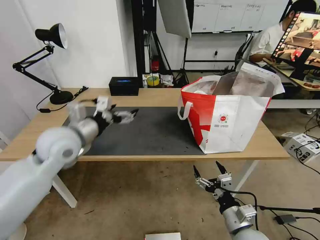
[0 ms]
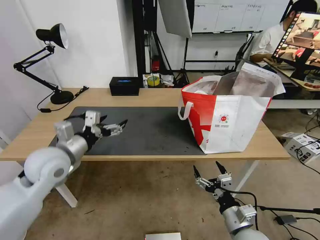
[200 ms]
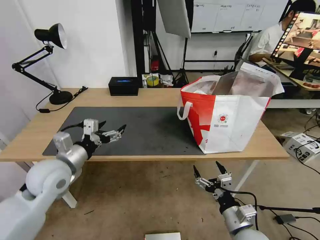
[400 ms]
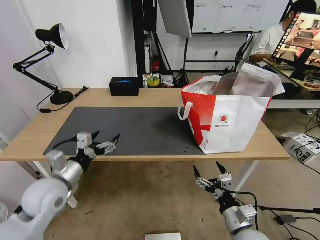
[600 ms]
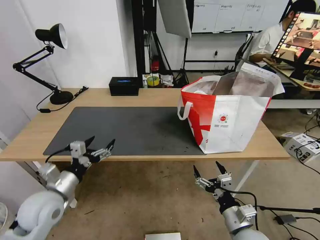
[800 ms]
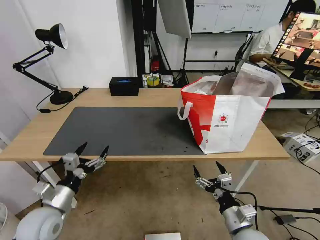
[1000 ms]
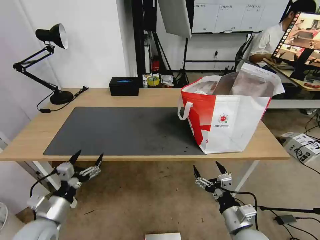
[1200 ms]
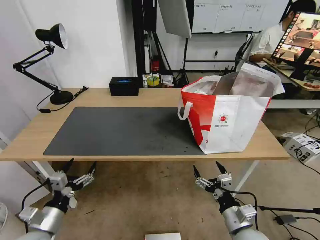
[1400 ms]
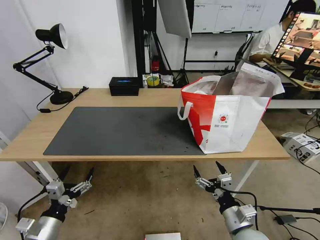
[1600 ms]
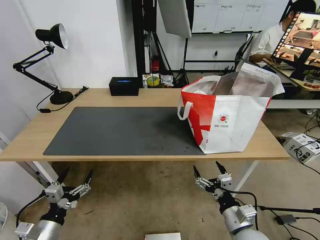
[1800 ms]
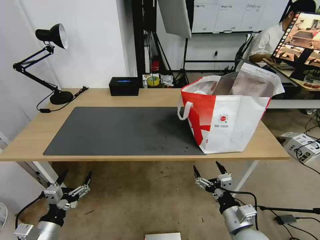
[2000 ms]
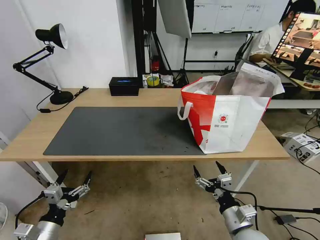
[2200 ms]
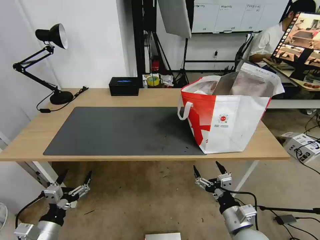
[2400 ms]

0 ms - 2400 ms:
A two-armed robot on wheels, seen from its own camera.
Task of the whole recording: Pick up the trash from the table and place it into the takeout bag.
0 ms - 1200 ms: The left gripper moves downward and backward, about 25 cm.
1200 ms - 2400 ms: The left gripper travels backward by approximately 5 cm.

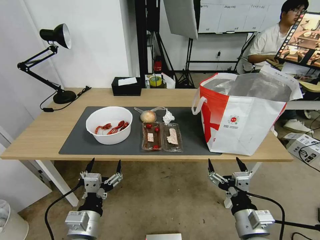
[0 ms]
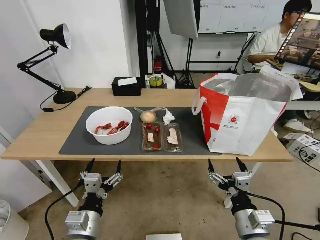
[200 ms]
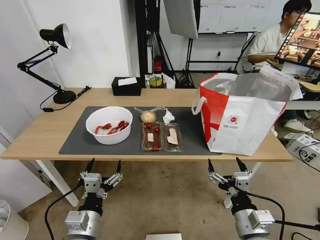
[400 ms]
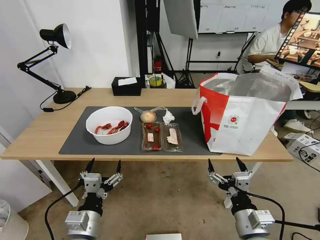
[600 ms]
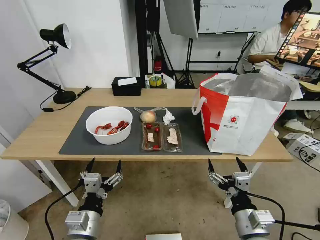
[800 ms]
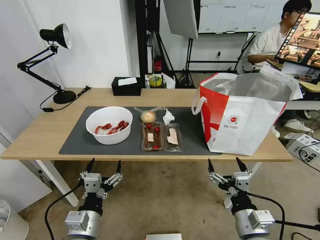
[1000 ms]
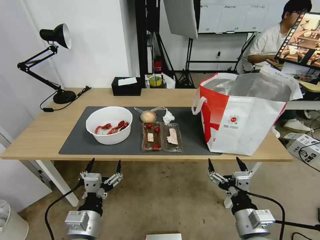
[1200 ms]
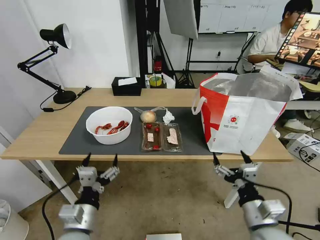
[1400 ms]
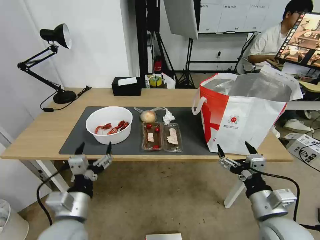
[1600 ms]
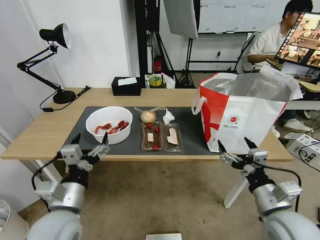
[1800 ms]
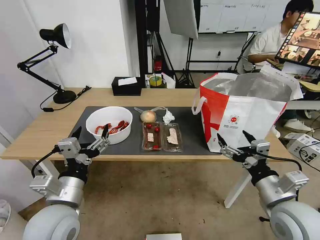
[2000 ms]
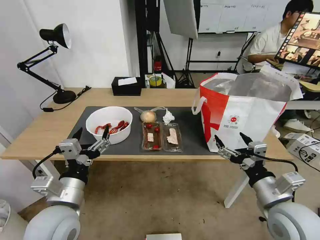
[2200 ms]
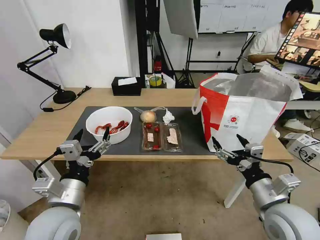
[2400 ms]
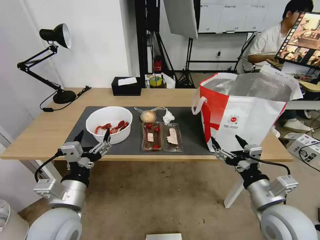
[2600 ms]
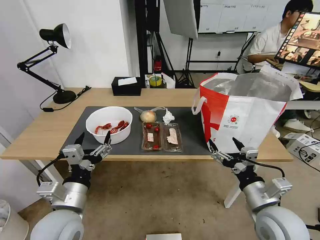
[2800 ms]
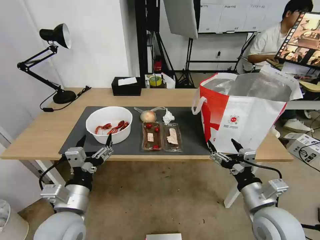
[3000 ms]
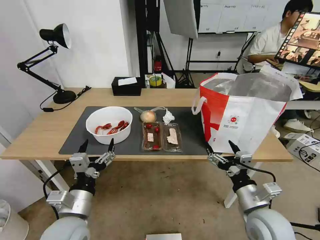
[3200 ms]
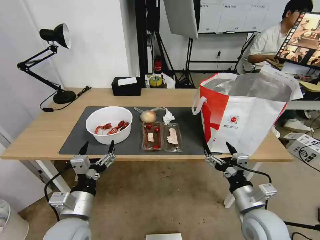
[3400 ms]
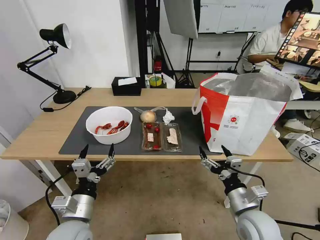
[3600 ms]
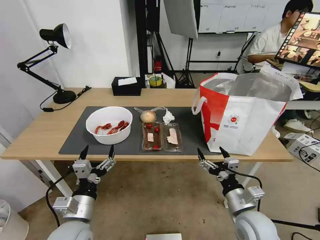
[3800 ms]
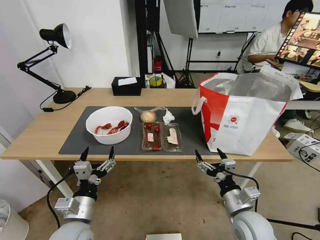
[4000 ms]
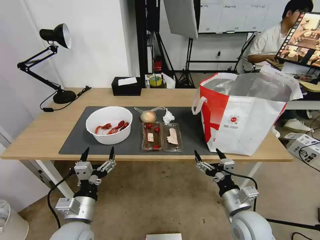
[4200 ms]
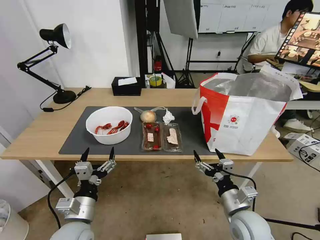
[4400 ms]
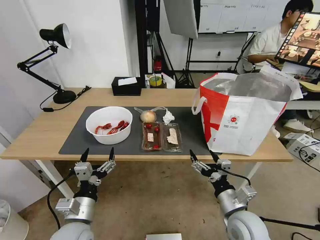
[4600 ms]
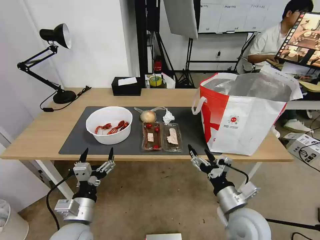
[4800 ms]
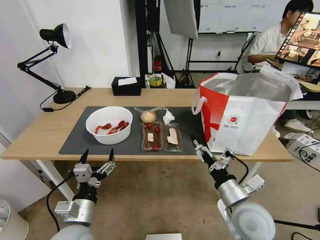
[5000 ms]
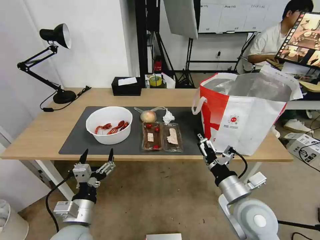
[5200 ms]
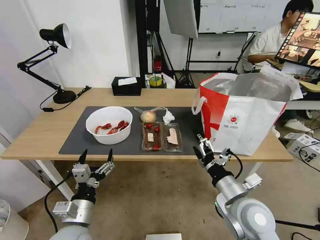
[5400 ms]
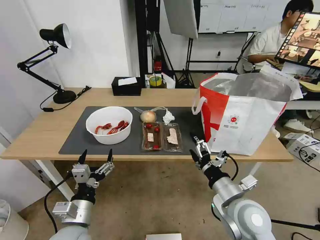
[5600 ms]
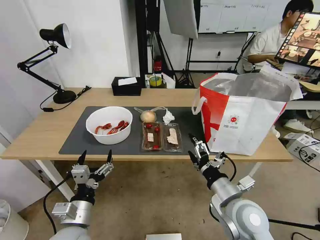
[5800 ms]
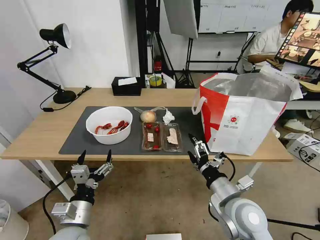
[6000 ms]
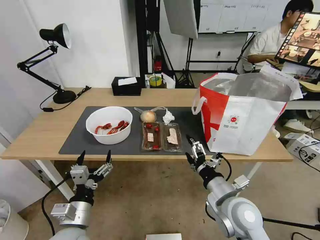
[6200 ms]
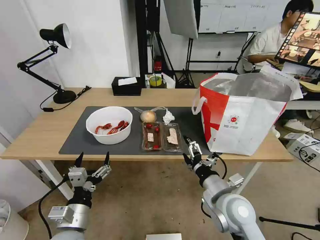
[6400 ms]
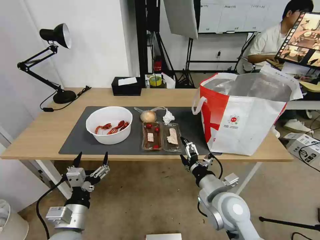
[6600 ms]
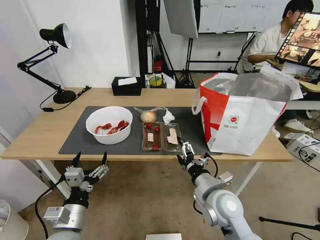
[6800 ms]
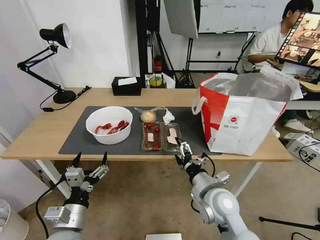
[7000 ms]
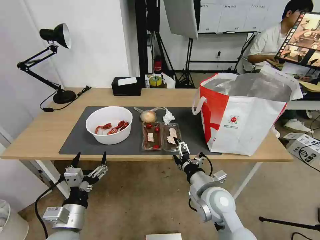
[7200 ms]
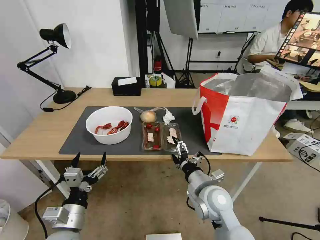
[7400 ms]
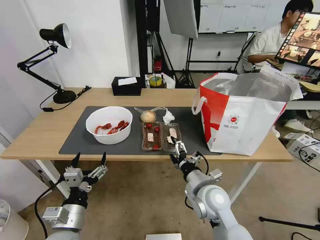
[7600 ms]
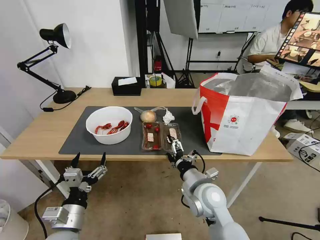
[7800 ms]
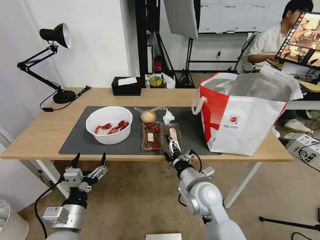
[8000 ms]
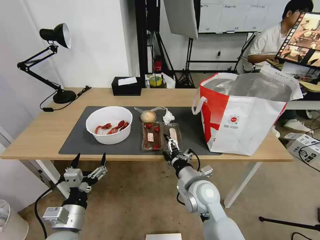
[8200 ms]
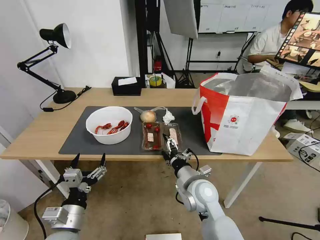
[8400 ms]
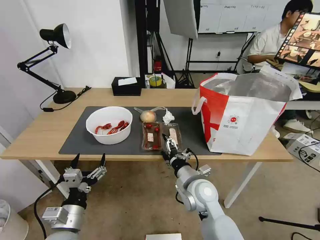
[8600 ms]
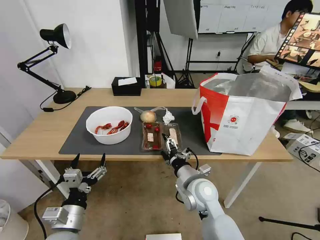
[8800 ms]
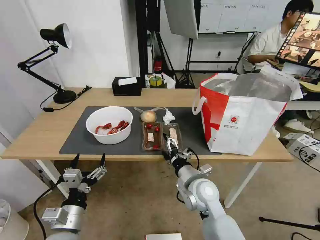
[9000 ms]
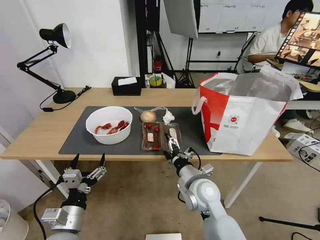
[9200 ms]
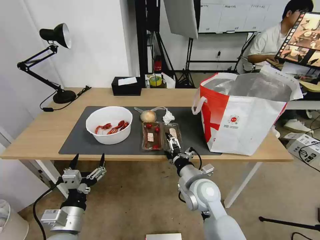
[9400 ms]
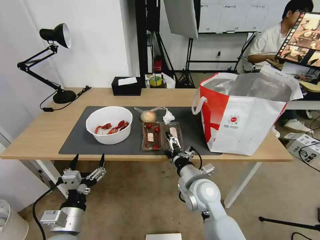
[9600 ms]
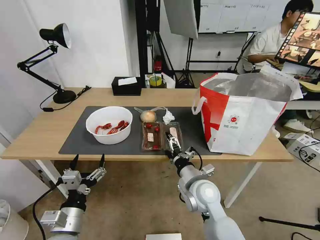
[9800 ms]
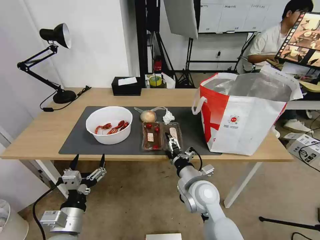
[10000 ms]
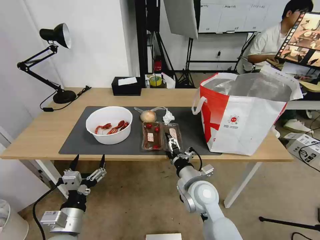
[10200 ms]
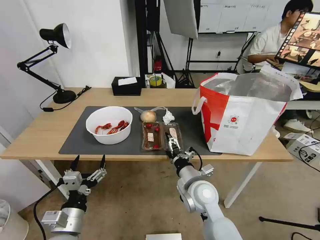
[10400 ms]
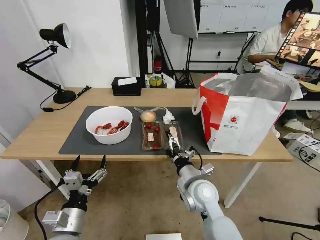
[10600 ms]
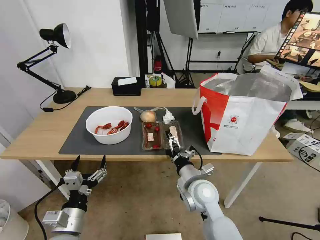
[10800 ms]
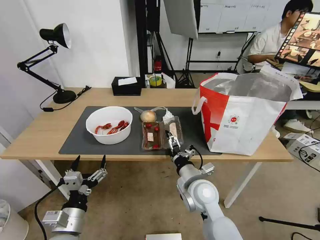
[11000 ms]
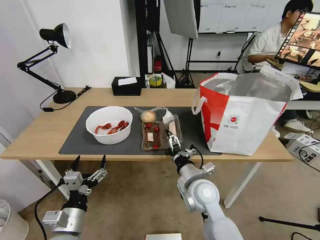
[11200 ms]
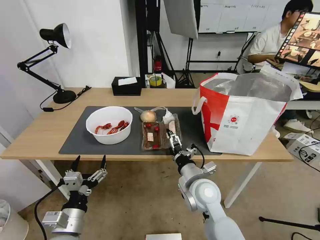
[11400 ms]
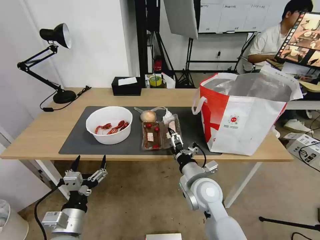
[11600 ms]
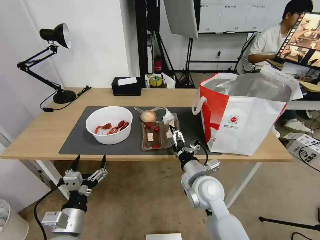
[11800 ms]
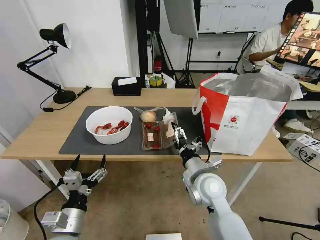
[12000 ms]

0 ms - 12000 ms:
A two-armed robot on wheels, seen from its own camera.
Task of the whole recording: Pick up the trash from the table and place it into the takeout bag.
1600 ms - 3000 ms: The grippers move only a little.
3000 ms - 4400 ms: Both grippers move downward, roughly 5 cm.
4400 ms - 6000 ms: The right gripper shifts approximately 5 cm upward.
6000 ms - 7600 ms: The right gripper shifts about 10 cm to the left and forward.
7600 ms - 12000 ms: The grippers make only small movements.

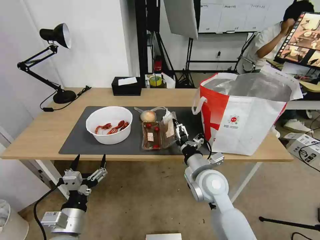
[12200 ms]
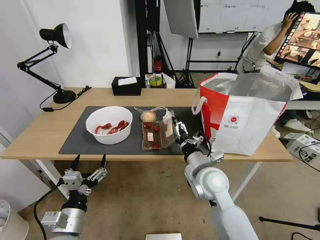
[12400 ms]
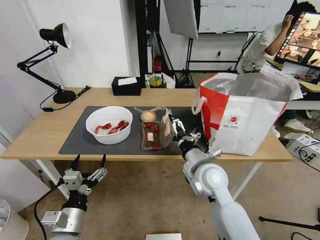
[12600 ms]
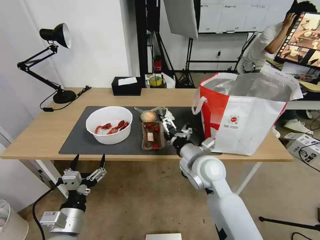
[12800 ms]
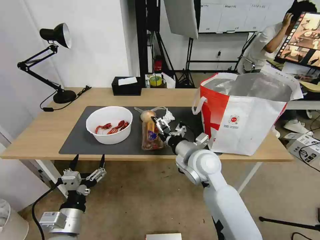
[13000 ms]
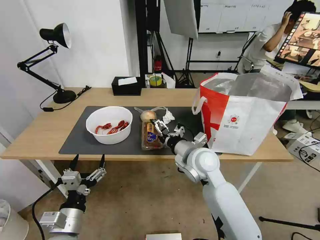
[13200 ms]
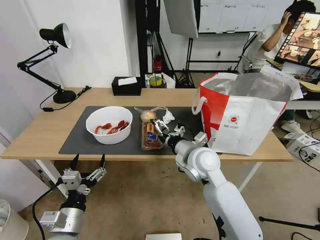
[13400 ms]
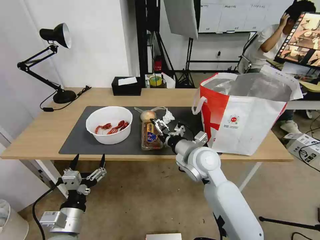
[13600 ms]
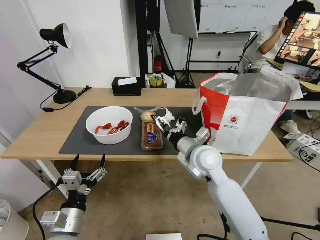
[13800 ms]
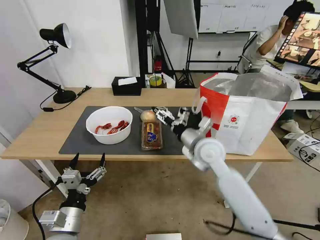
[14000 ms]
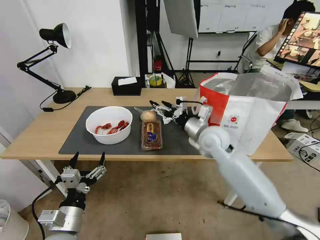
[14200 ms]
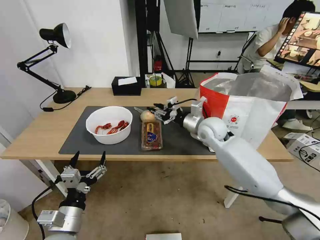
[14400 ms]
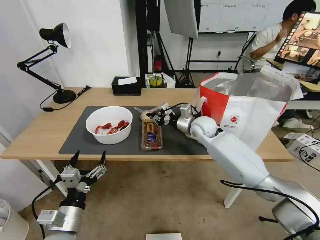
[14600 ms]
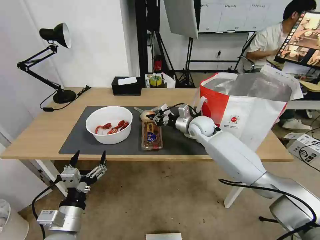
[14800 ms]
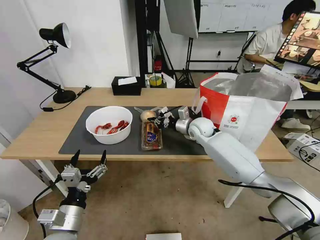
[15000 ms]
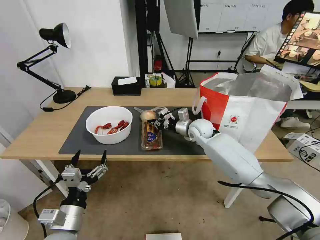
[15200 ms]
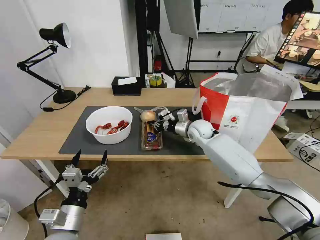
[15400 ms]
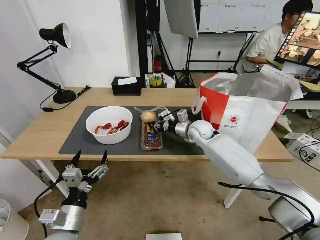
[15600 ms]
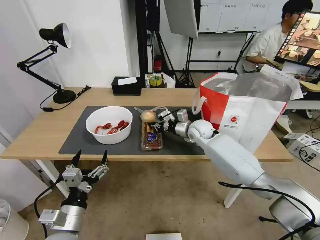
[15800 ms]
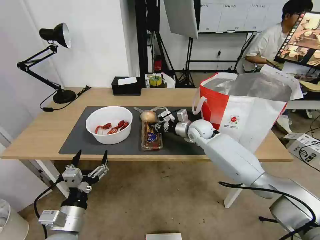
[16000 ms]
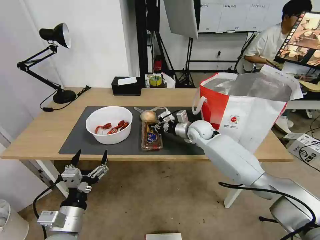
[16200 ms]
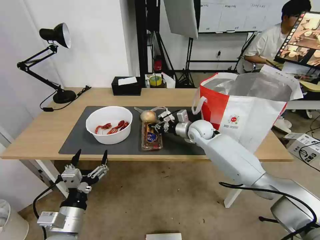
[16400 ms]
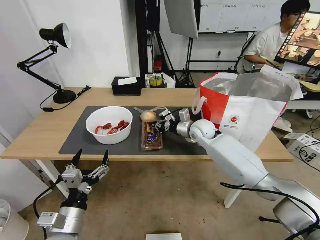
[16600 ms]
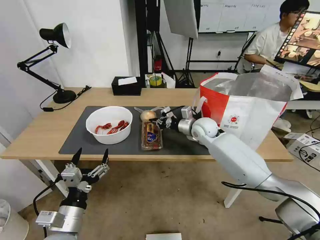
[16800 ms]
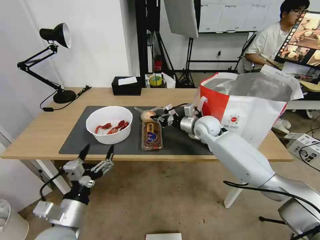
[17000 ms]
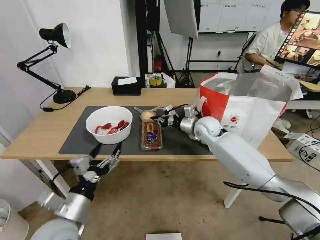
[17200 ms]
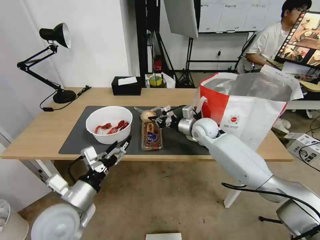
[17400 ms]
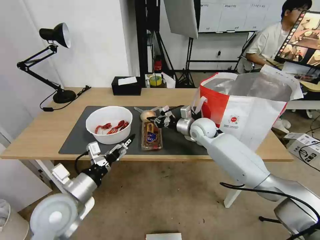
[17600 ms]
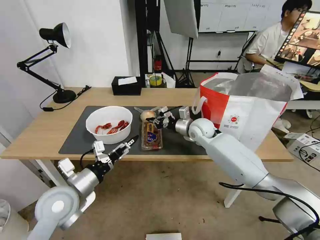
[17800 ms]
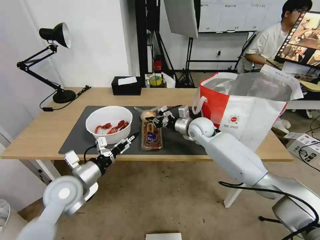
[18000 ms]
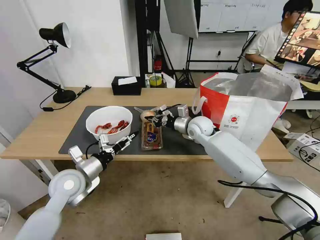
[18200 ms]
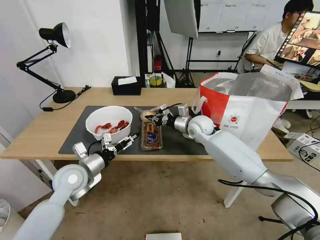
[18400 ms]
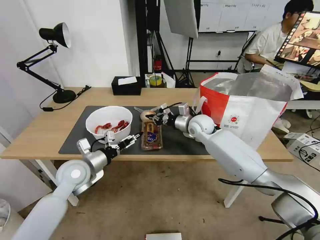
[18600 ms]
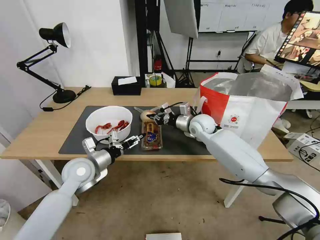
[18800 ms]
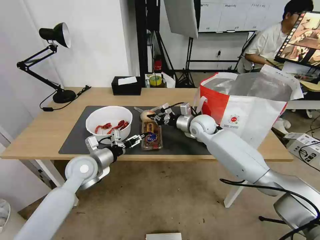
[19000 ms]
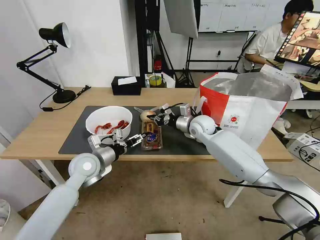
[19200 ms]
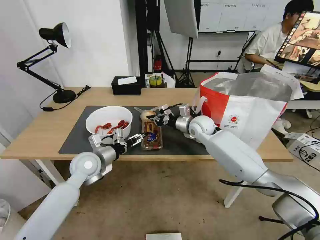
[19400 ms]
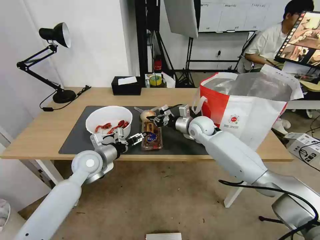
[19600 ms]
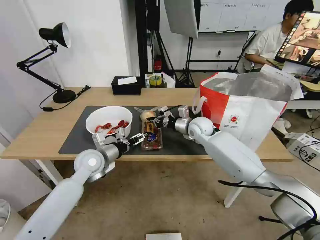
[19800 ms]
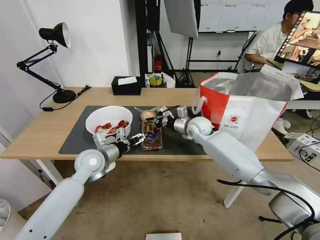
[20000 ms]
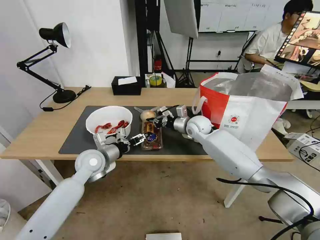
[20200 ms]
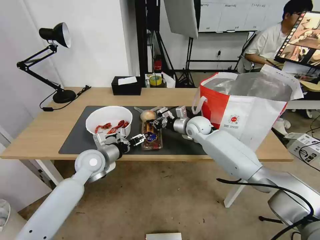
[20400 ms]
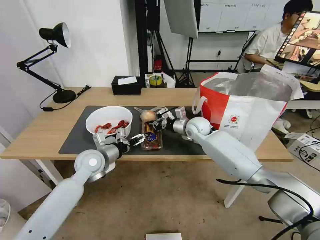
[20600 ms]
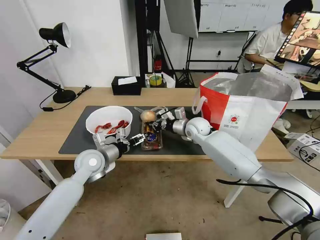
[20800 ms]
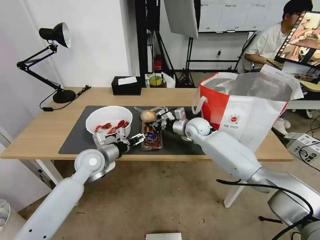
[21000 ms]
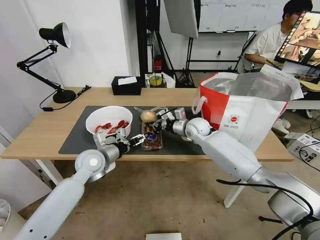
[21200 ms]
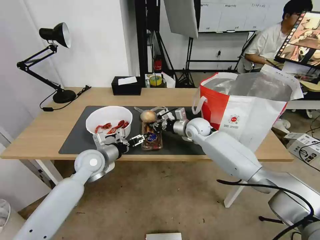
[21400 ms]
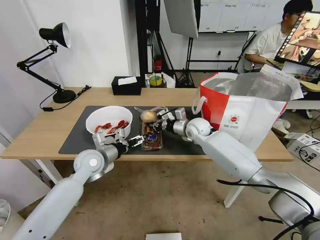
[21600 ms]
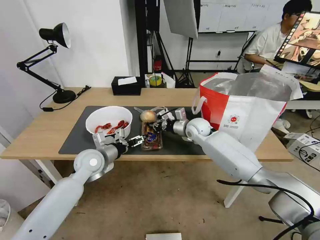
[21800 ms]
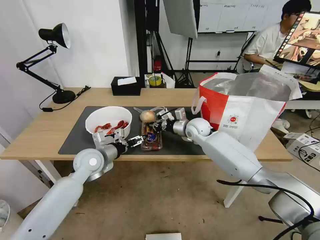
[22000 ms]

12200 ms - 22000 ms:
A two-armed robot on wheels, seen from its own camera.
Task of the whole recording: Pick up the trash from the table and place it into the takeout bag.
12200 ms - 13600 ms: The right gripper is displaced forward by roughly 5 cm.
13600 ms - 15000 ms: The right gripper travels forward by approximately 20 cm, and closes up.
15000 ms - 16400 ms: The grippers move only a little.
16400 ms - 17800 ms: The left gripper is displaced forward and upward by about 10 cm.
17800 ms - 19200 ms: The left gripper goes approximately 10 cm forward.
19200 ms - 22000 ms: There are only small adjustments of the grippers.
